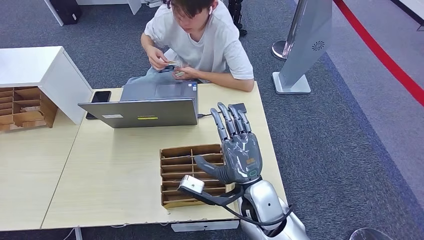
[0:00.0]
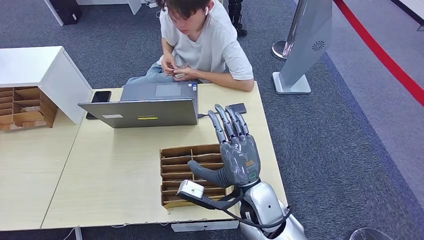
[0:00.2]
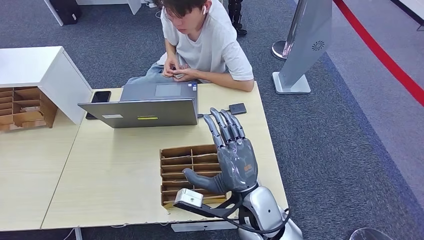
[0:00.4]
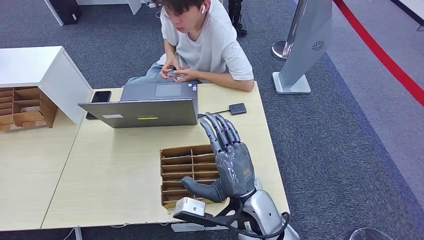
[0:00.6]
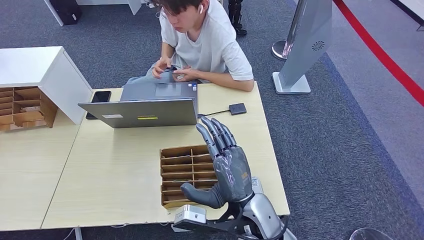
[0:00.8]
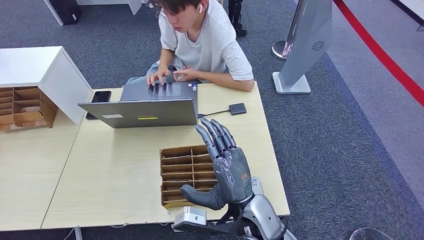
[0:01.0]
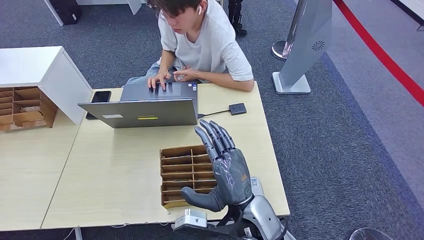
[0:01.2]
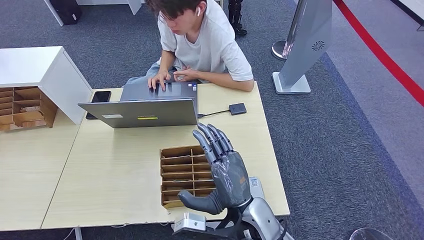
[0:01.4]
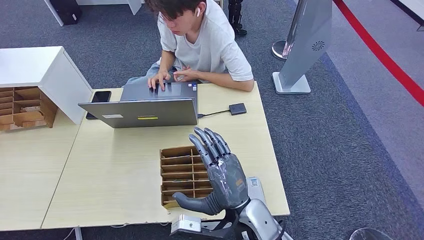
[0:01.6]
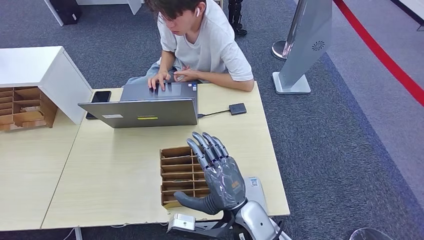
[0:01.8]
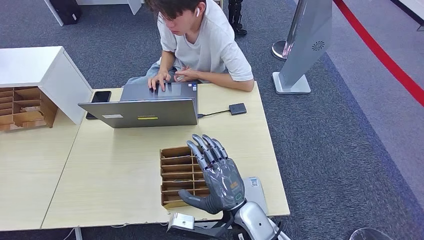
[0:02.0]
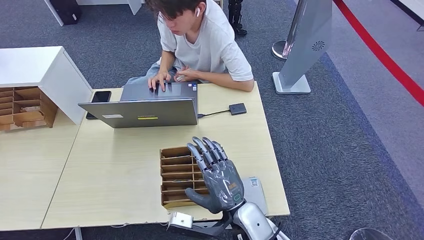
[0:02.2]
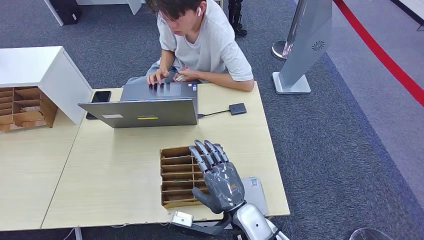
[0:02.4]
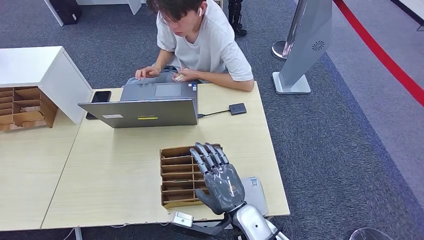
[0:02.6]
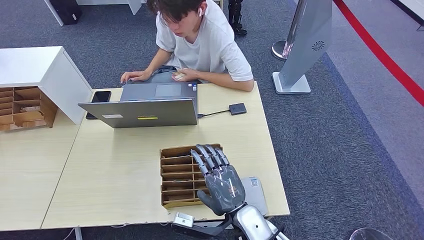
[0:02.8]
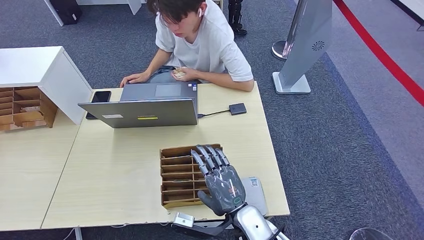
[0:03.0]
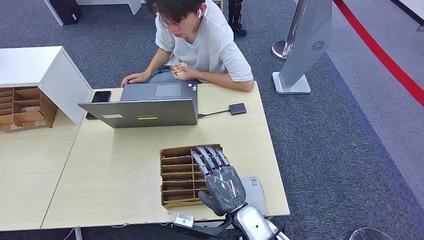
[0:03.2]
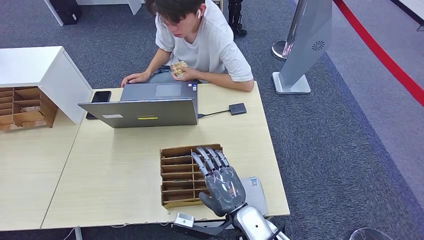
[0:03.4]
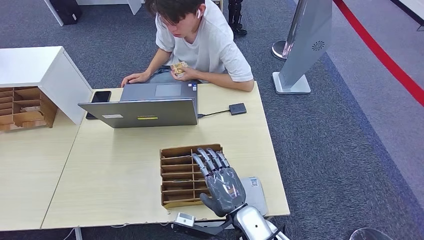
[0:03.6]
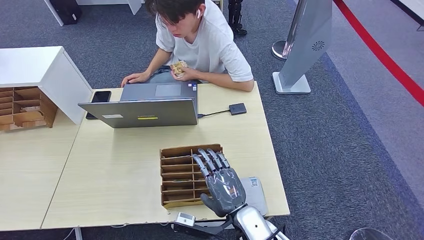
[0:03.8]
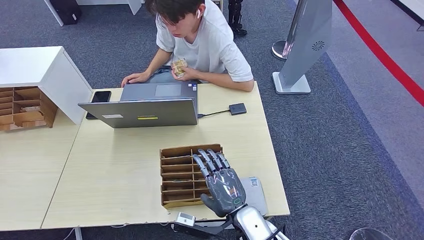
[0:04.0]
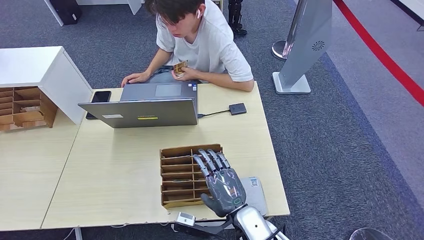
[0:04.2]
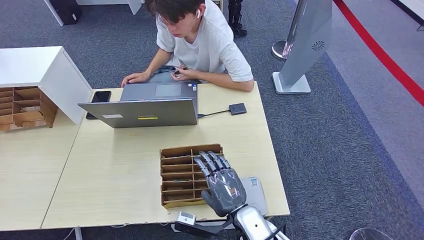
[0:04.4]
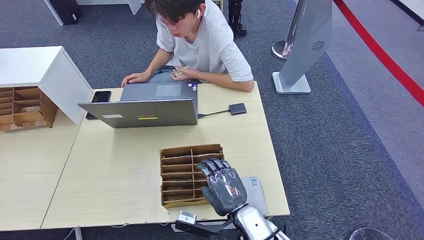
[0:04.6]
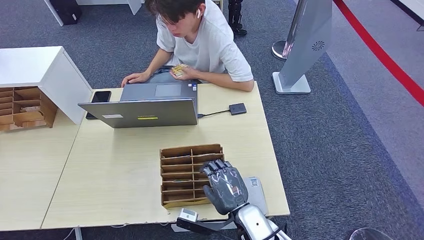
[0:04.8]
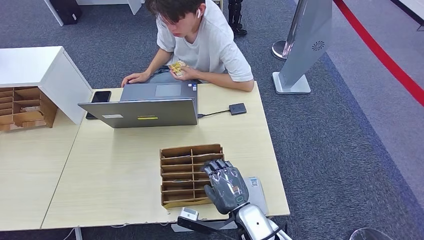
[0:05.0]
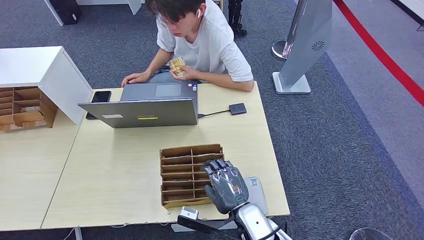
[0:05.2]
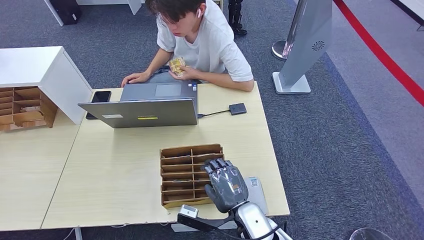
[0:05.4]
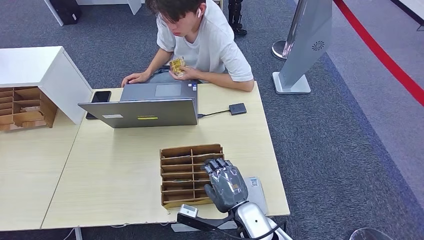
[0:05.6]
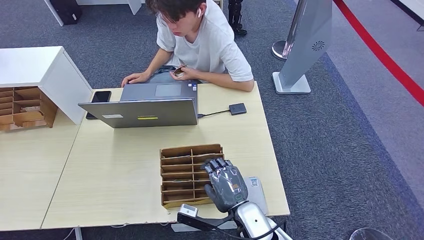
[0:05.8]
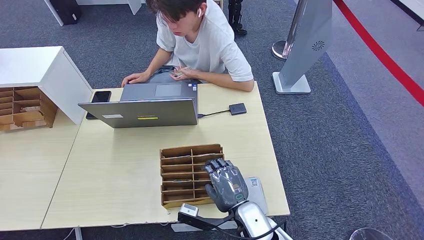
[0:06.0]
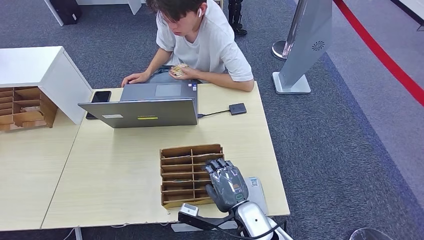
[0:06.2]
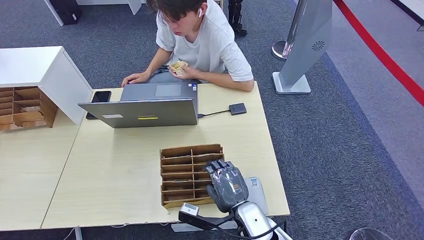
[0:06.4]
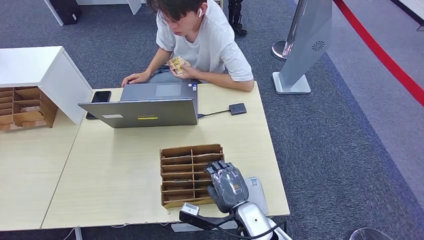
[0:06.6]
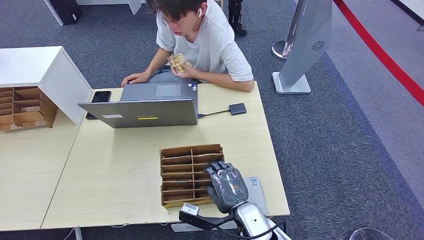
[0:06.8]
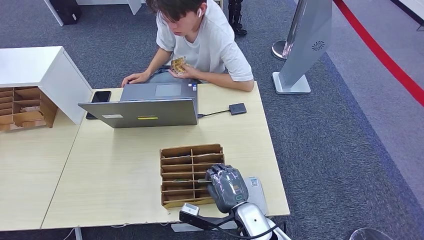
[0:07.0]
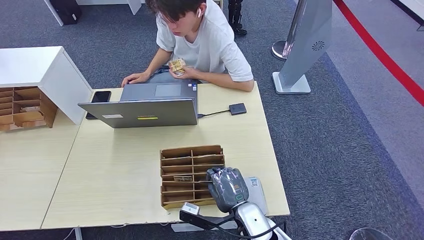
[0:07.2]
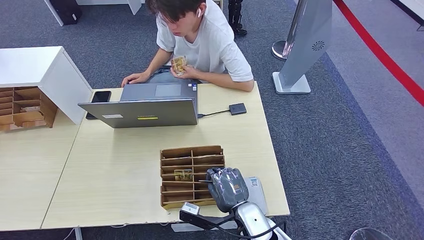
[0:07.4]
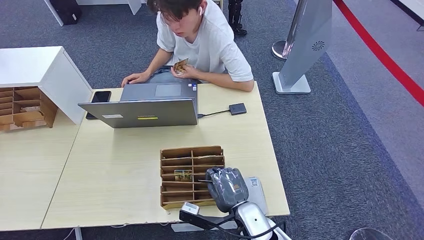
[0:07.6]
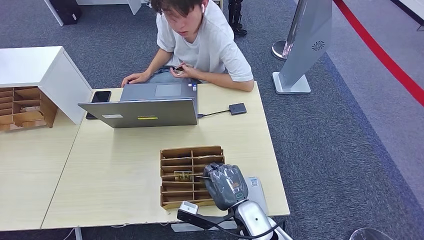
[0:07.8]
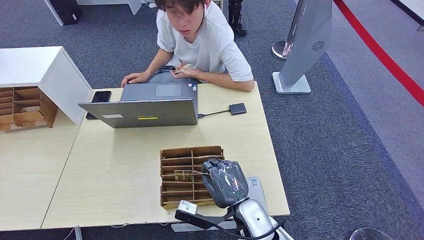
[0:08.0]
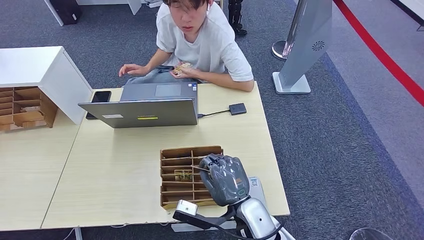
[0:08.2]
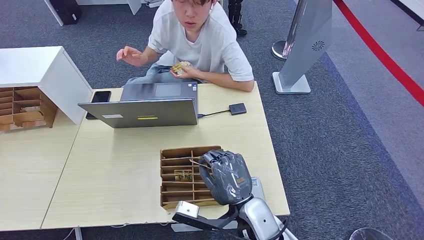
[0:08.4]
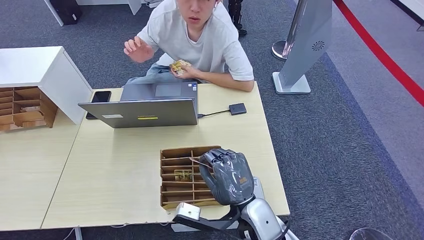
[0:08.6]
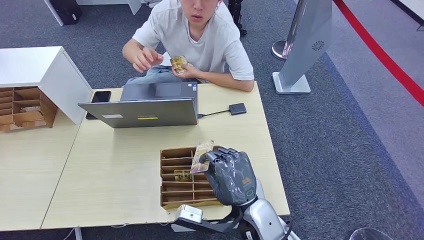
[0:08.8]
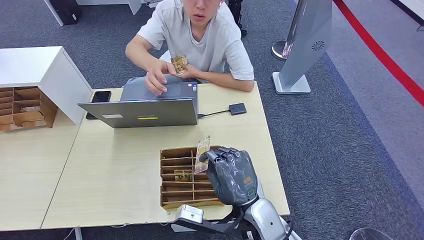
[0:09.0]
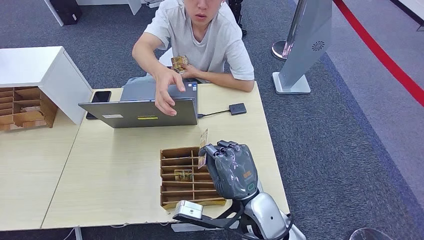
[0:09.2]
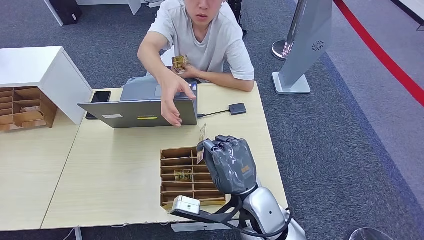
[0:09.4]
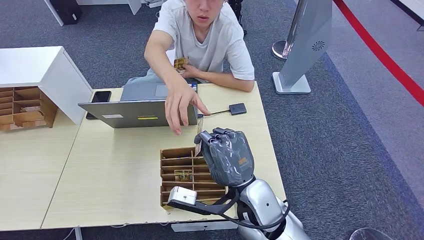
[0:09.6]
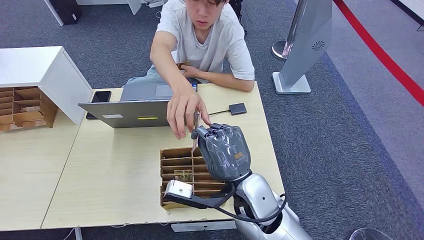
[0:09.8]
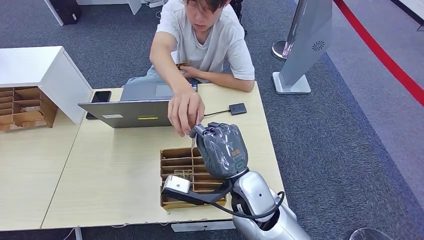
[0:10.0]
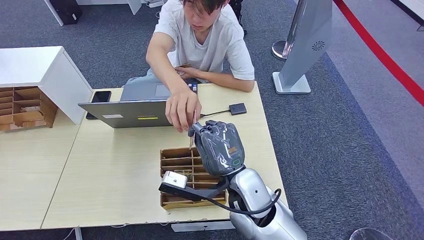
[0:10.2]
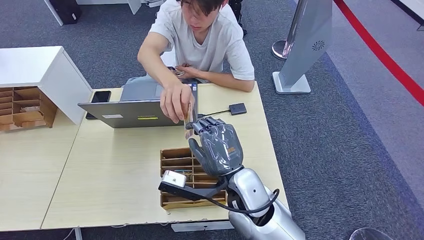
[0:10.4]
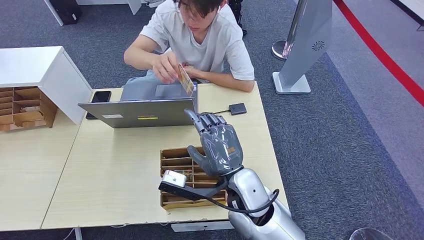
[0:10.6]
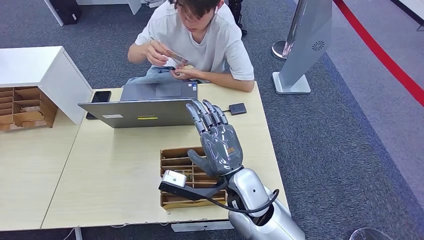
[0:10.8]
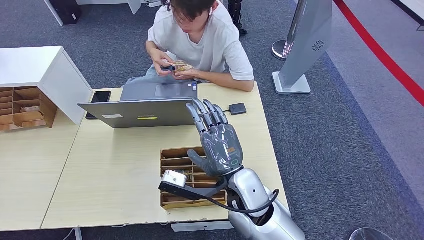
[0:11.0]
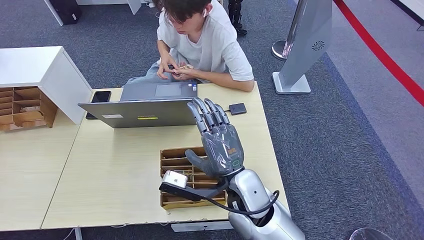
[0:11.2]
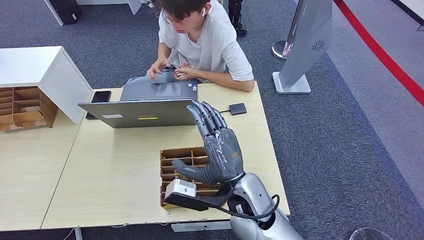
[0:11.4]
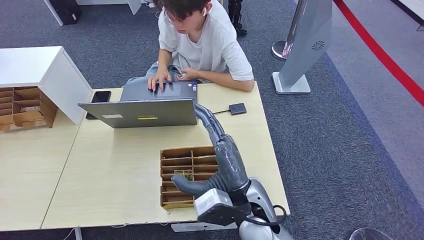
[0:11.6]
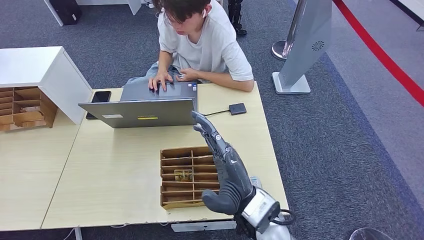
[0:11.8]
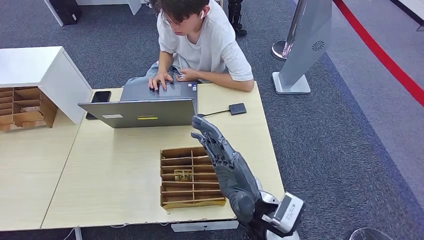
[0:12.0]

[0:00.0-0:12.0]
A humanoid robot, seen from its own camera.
Step, 0:00.2 to 0:09.2: Pick up the room key from the key card box.
Step, 0:09.6 to 0:12.0: Hand the room key to the person.
0:01.6 to 0:03.0: The right hand travels downward by roughly 5 cm.
0:03.0 to 0:04.4: The hands move only a little.
0:04.4 to 0:06.0: The two hands keep their place.
0:06.0 to 0:07.6: The two hands keep their place.
0:07.6 to 0:09.0: The right hand moves upward, about 10 cm.
0:09.0 to 0:10.4: The right hand shifts some 5 cm forward.
0:10.4 to 0:12.0: The right hand changes place by about 5 cm.

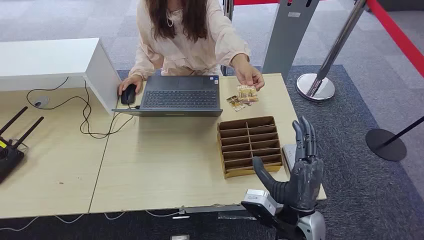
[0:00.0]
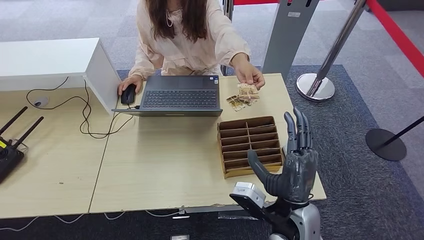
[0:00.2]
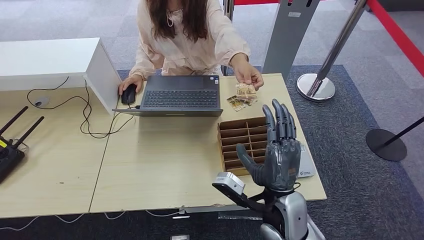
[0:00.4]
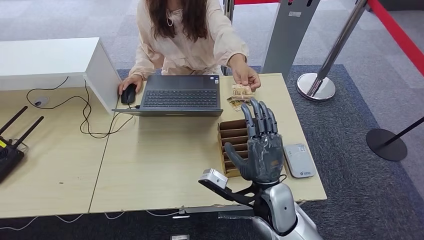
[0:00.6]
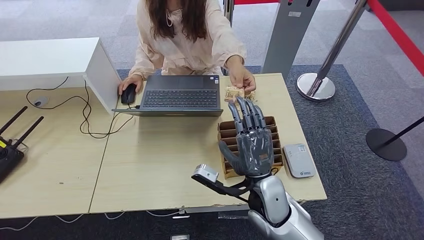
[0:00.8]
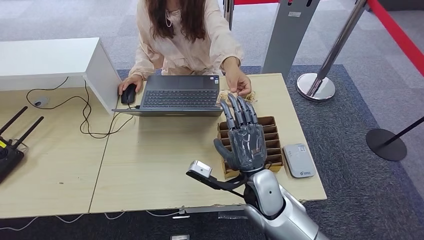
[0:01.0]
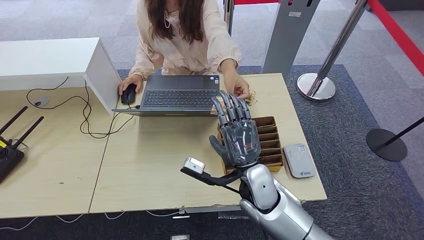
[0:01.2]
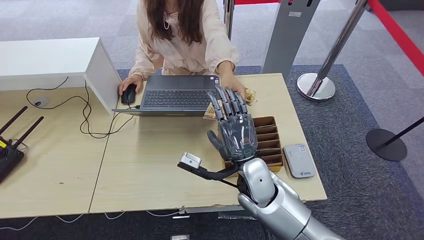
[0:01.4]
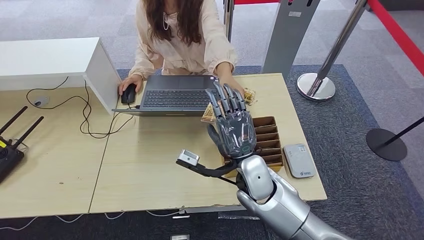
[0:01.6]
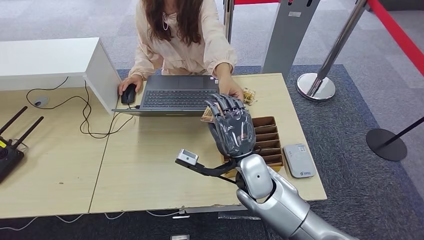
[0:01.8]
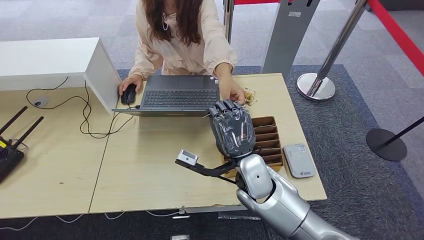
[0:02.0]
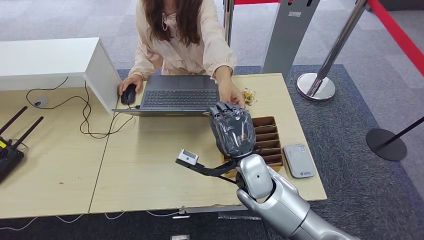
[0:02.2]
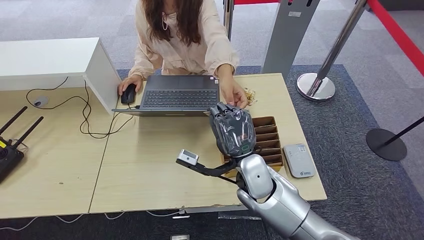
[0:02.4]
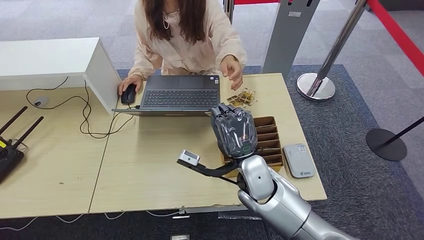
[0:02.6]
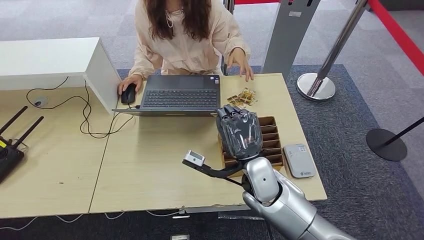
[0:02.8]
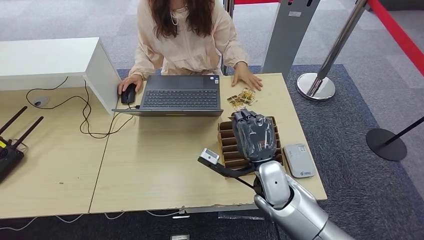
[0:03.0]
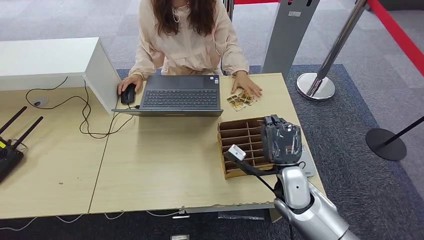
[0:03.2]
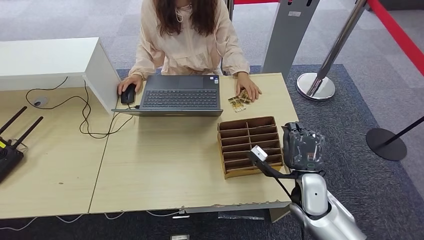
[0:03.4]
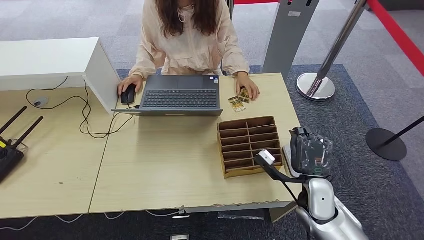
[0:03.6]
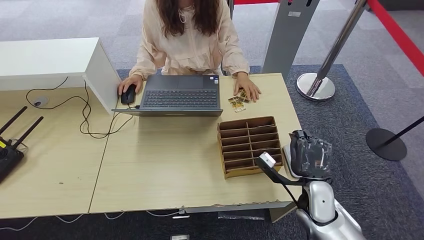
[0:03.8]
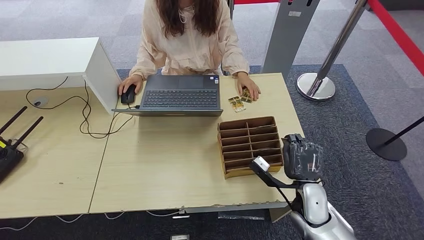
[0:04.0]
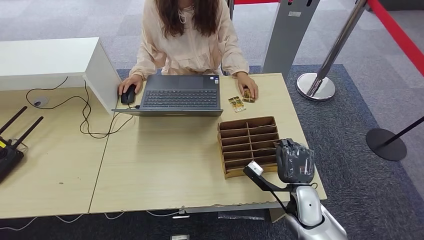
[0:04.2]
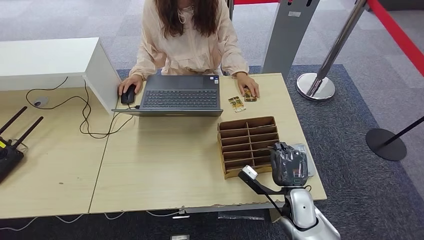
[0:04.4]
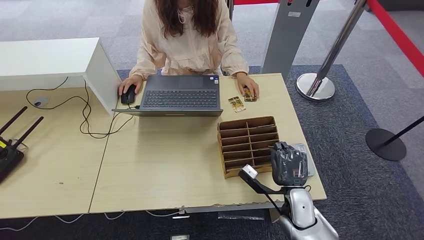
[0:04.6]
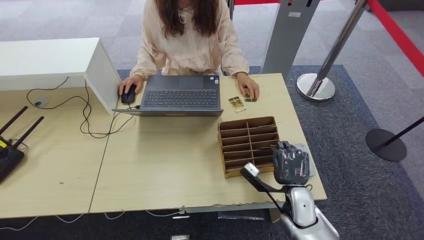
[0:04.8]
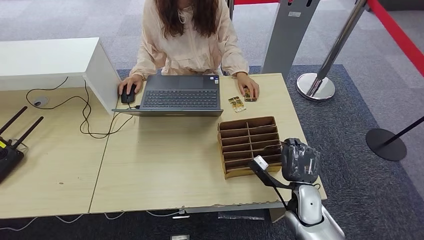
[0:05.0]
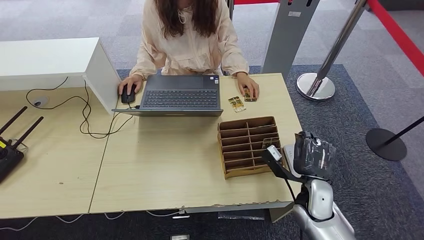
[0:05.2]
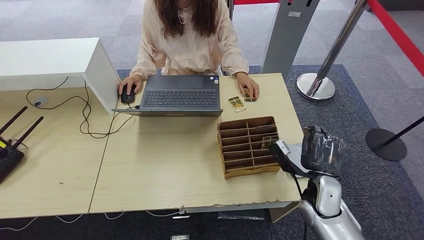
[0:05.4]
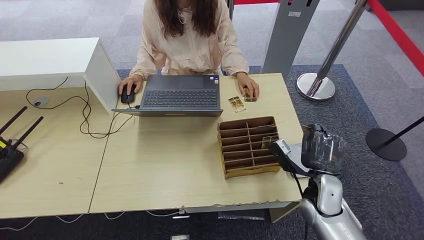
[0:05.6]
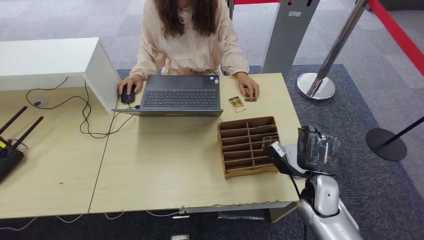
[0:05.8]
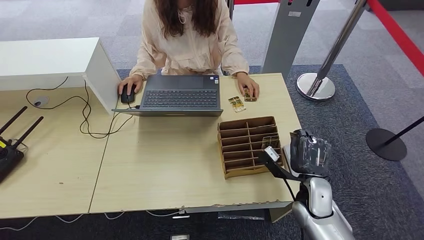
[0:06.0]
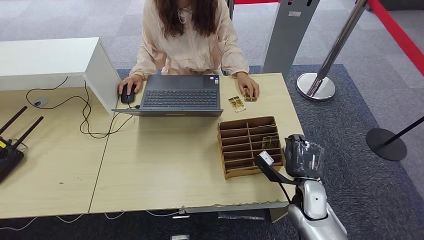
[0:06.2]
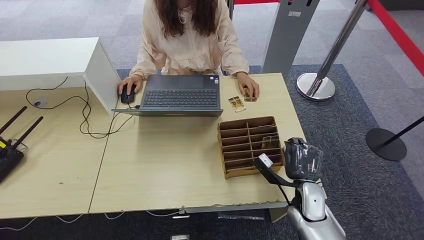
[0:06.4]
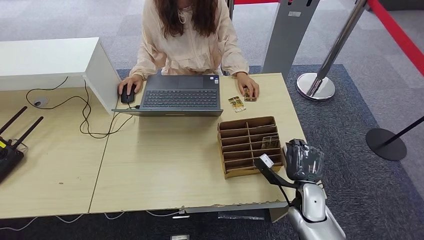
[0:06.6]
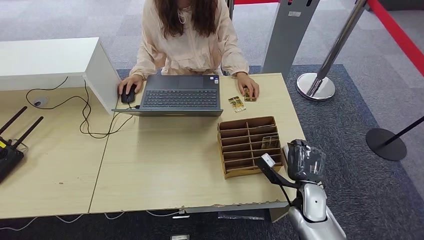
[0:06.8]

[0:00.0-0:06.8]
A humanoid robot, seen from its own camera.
Step, 0:00.0 to 0:02.8: Take the ID card from the person's hand.
0:01.4 to 0:02.8: There are only small adjustments of the hands.
0:02.8 to 0:04.0: The right hand heads to the right and downward, covering roughly 15 cm.
0:04.0 to 0:05.4: There are only small adjustments of the hands.
0:05.4 to 0:06.8: The right hand moves downward, approximately 5 cm.